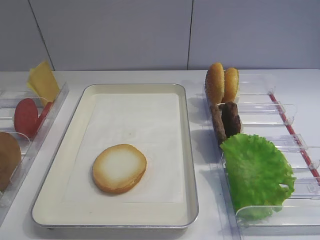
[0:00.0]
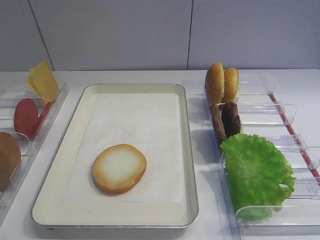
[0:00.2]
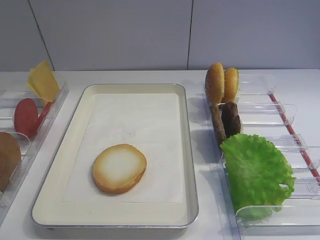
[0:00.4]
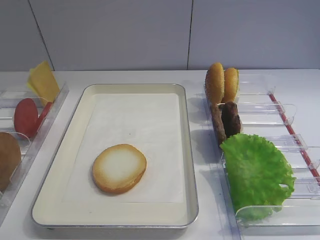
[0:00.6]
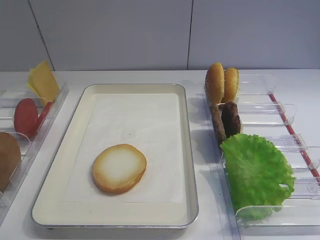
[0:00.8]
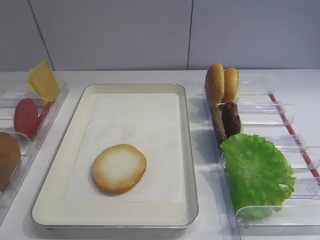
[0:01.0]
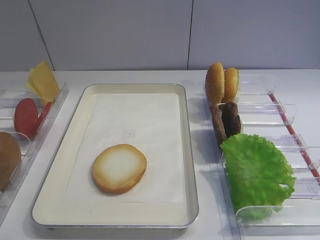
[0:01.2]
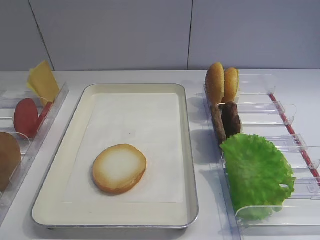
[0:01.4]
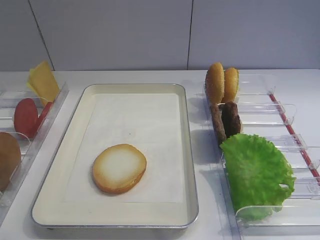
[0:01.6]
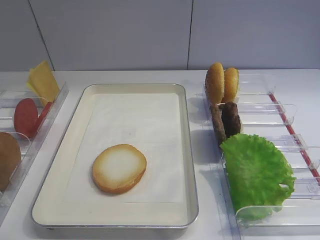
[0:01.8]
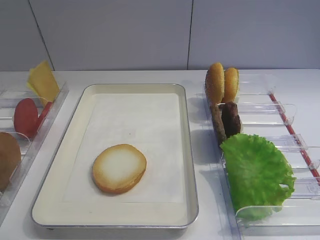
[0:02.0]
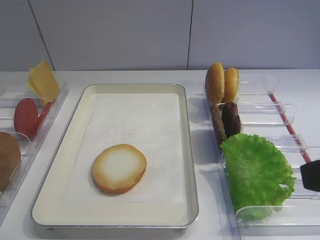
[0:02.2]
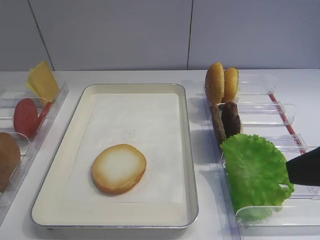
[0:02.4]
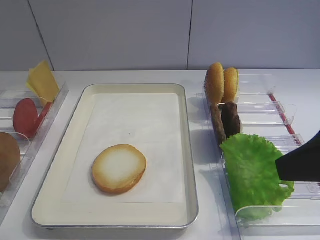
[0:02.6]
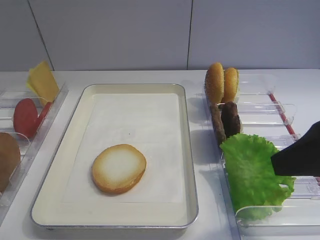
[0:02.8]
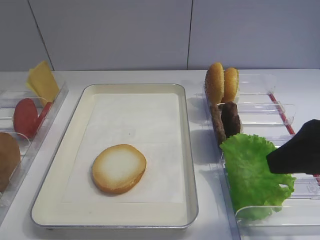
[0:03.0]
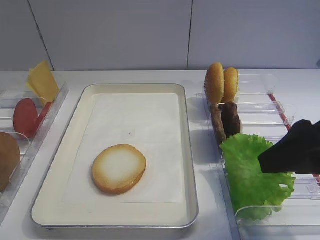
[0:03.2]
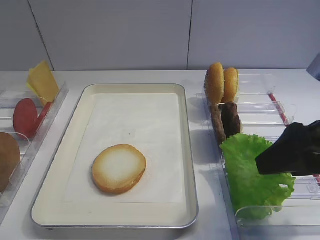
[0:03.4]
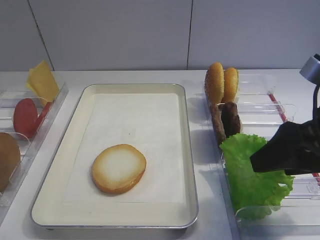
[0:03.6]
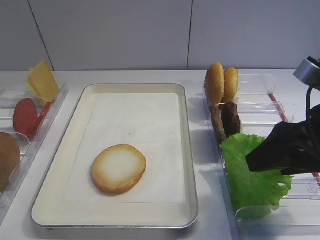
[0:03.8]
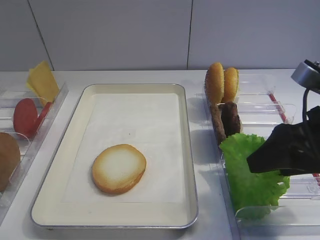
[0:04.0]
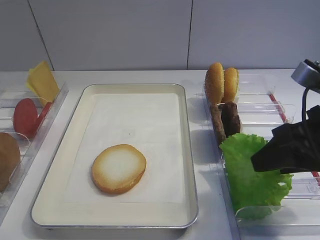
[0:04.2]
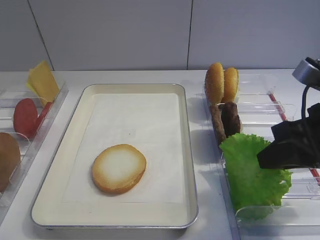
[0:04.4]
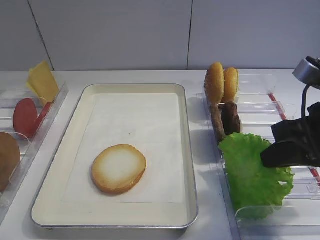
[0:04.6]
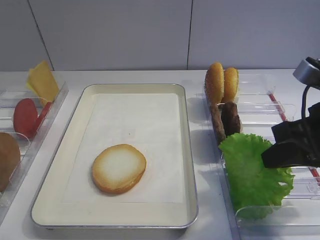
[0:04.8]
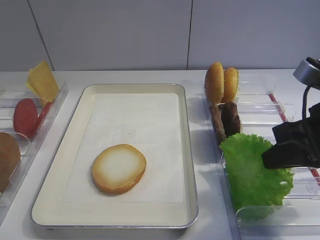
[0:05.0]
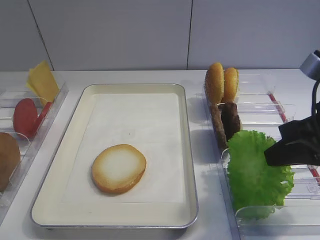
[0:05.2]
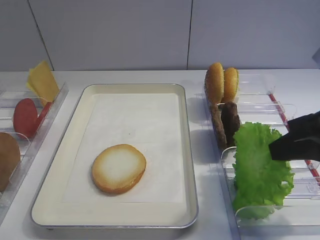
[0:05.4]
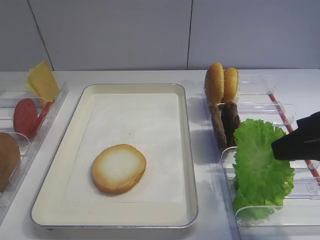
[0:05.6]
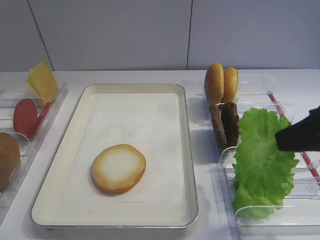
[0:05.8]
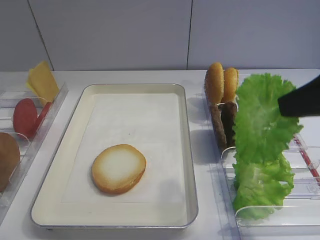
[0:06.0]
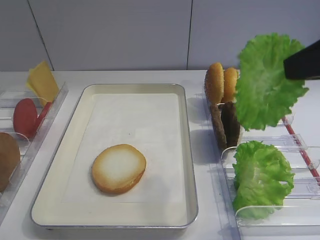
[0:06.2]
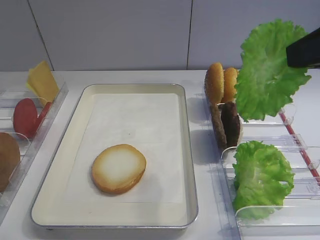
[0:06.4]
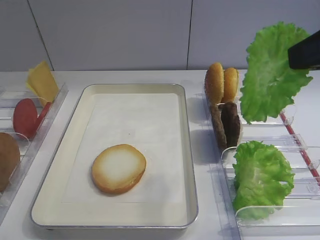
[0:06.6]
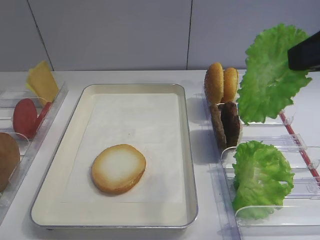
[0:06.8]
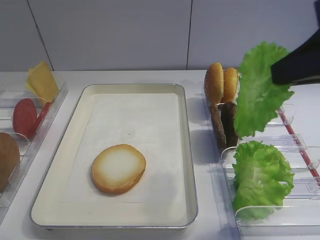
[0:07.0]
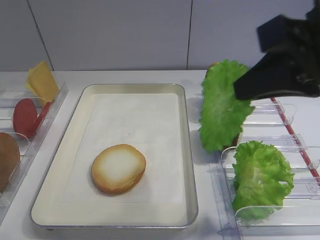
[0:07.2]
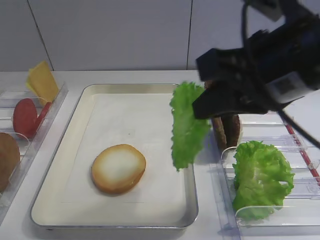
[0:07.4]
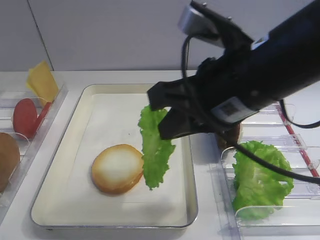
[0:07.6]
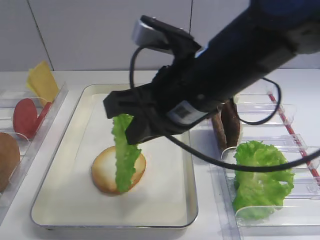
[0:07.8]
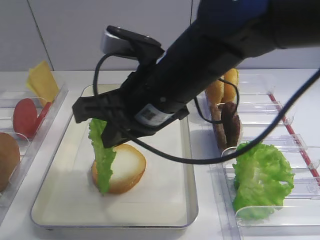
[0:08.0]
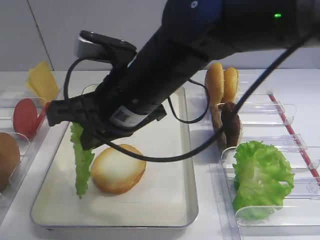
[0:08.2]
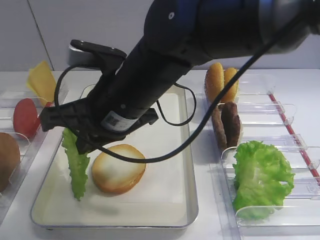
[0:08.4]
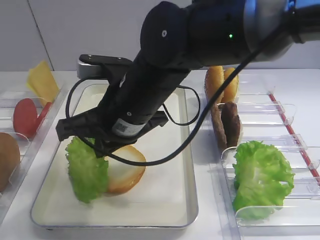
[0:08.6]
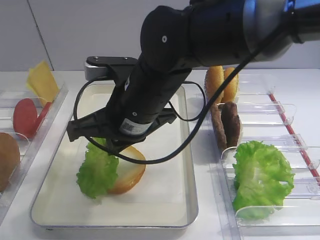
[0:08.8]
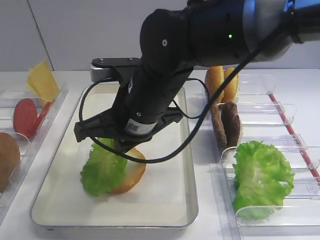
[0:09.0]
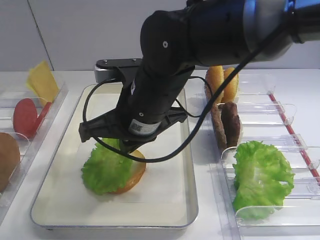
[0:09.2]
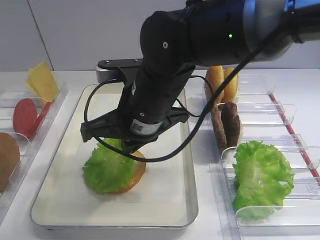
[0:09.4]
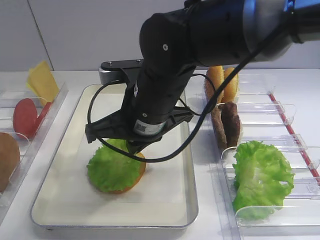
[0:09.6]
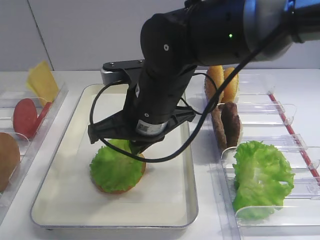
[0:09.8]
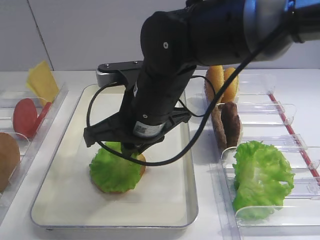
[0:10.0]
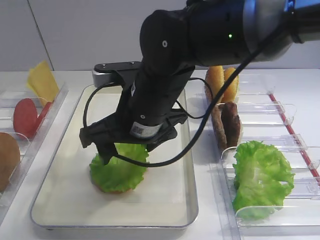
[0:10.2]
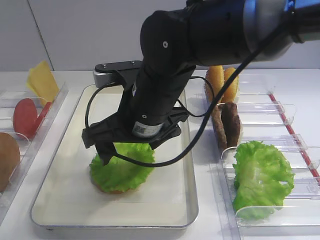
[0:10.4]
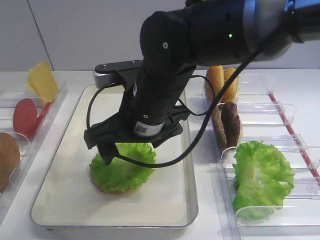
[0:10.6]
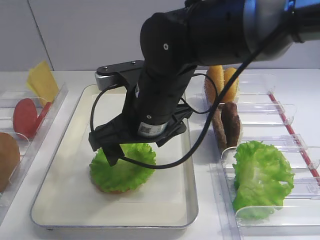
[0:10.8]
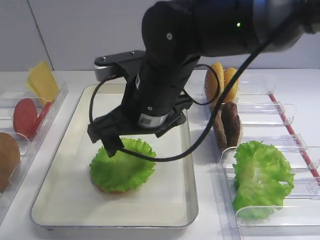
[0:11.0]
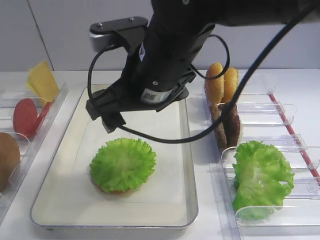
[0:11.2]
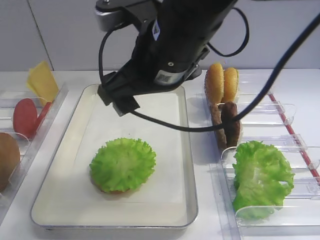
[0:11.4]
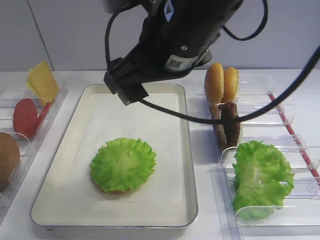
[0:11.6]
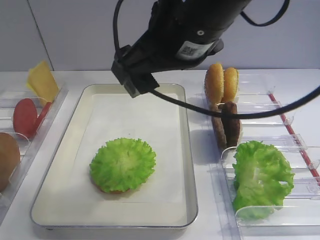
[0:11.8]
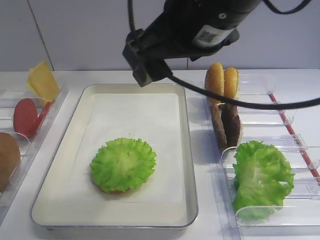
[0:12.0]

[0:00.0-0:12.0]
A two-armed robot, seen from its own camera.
Step, 0:00.0 to 0:05.8: Pick up the lettuce leaf with the right gripper.
Step, 0:06.0 to 0:11.0: Place the lettuce leaf on the bread slice with the right gripper.
0:01.6 to 0:03.0: The right gripper moves forward, about 15 cm.
0:03.0 to 0:04.4: The right gripper changes place by about 5 cm, and closes up.
0:04.4 to 0:06.0: The right gripper is displaced upward by some 10 cm.
0:06.0 to 0:07.6: The right gripper travels to the left by some 15 cm.
0:07.6 to 0:09.0: The right gripper travels to the left, downward and forward by about 15 cm.
0:09.0 to 0:10.4: The right gripper opens its fingers.
0:10.4 to 0:12.0: The right gripper goes about 15 cm upward and to the right.

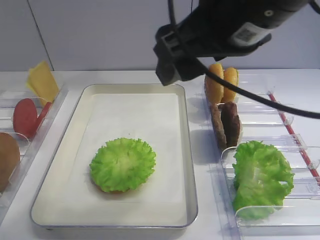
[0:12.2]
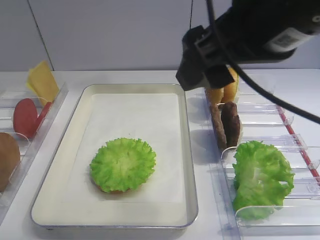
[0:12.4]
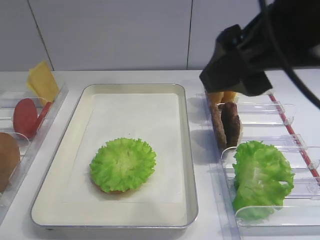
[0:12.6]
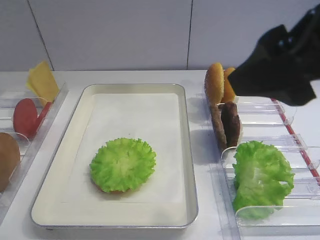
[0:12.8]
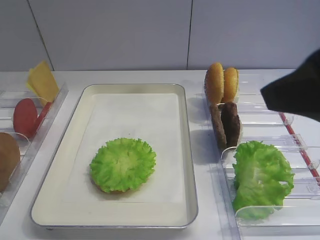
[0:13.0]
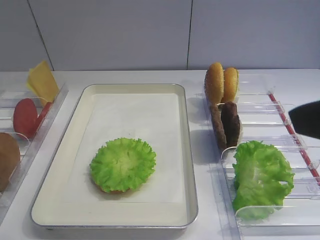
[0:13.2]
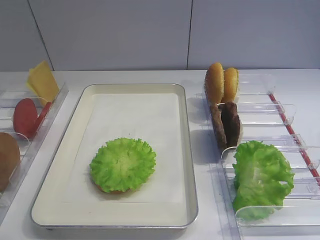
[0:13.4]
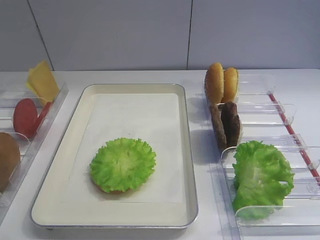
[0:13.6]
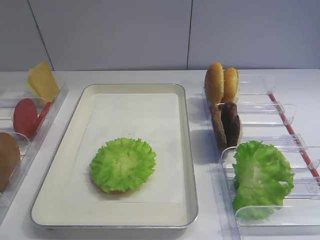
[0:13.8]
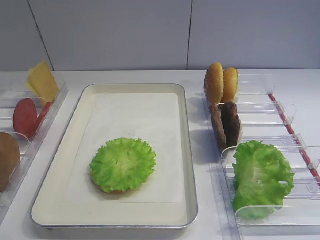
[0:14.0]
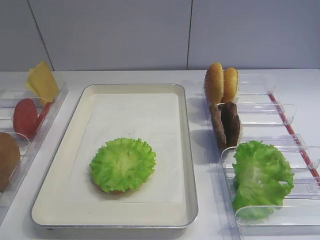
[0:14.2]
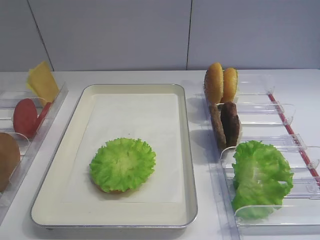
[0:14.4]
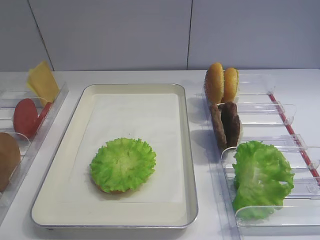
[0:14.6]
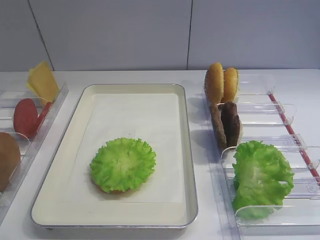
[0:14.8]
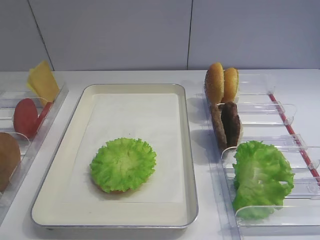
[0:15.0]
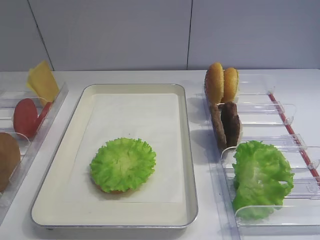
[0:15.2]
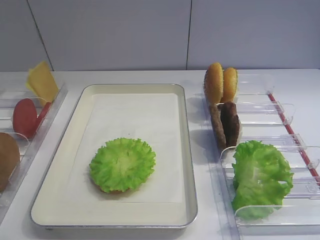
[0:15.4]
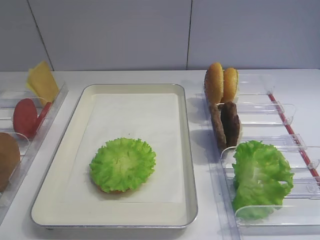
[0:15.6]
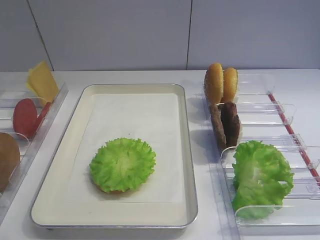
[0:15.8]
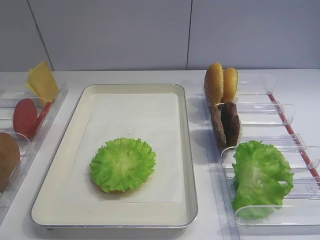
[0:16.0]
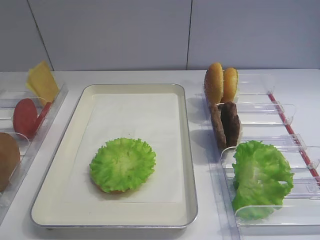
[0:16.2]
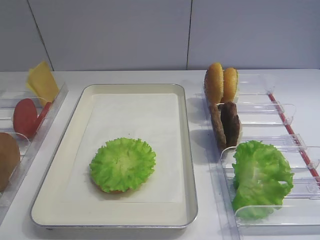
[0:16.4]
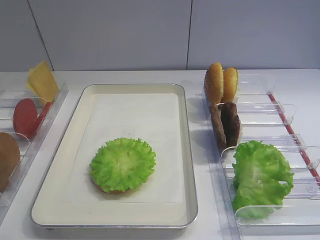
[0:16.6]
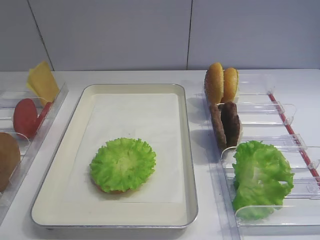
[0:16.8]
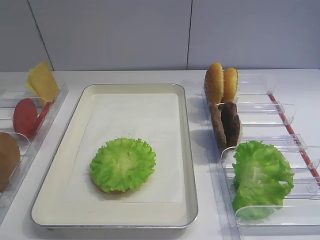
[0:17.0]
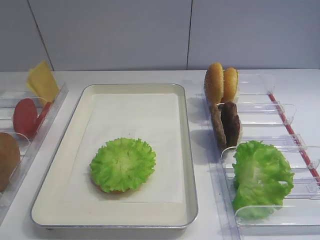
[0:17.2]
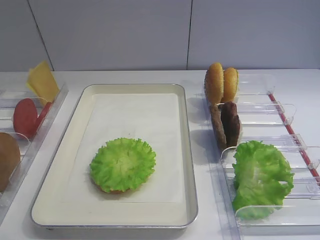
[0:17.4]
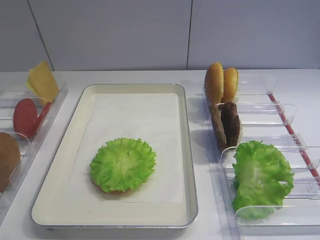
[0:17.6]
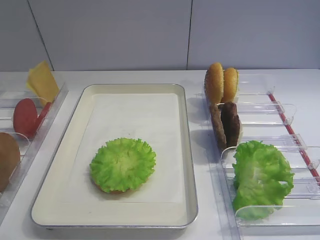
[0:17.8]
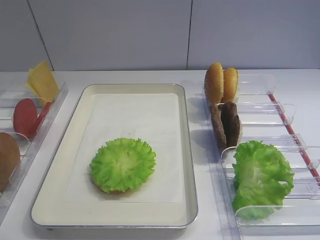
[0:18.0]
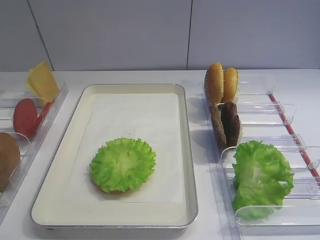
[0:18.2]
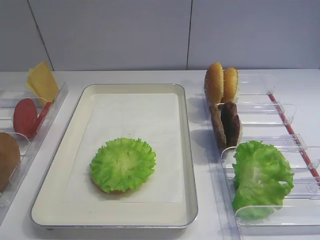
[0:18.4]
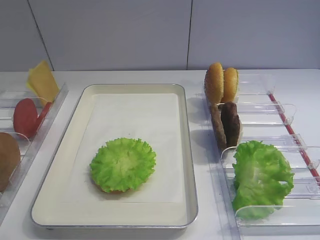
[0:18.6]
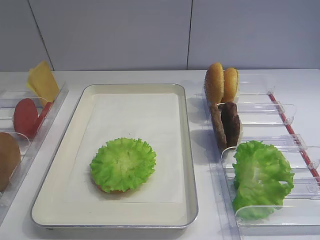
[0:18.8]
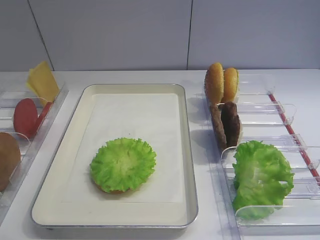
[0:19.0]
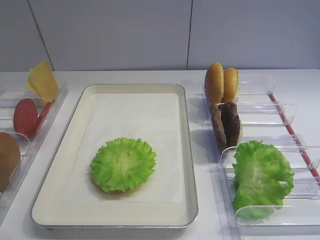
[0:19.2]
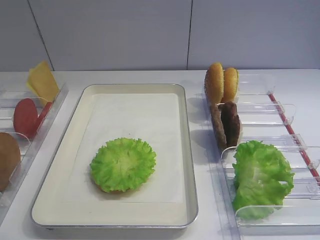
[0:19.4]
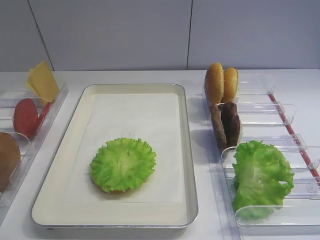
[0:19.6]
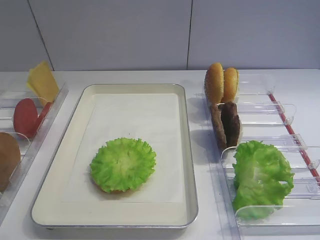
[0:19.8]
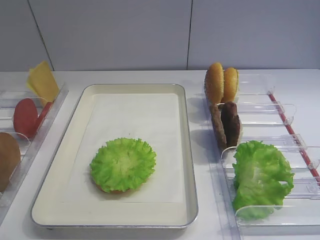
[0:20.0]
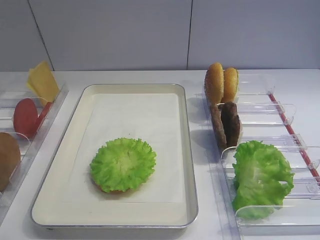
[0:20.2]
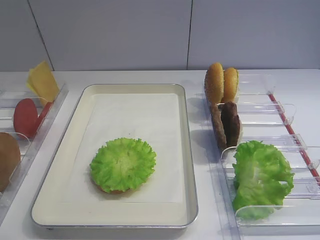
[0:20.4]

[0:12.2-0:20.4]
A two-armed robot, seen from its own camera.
0:12.2 to 0:13.8: The right gripper goes roughly 25 cm to the right and backward.
0:17.2 to 0:20.4: Both grippers stay put.

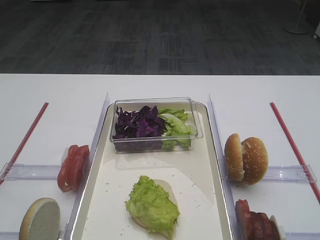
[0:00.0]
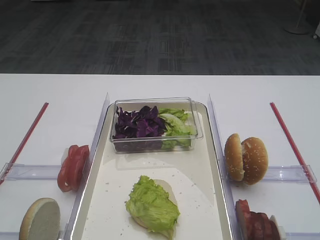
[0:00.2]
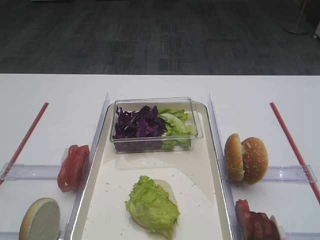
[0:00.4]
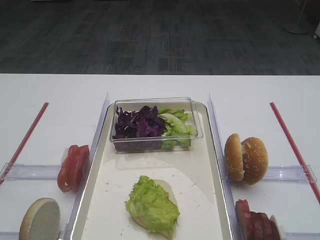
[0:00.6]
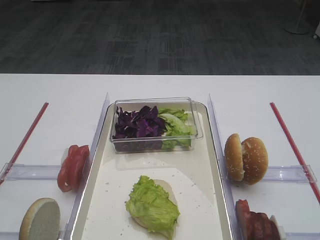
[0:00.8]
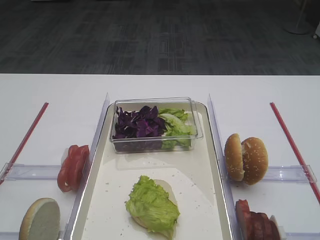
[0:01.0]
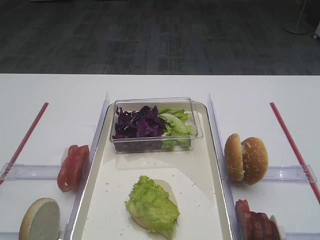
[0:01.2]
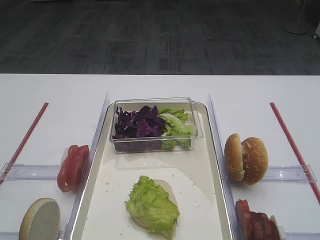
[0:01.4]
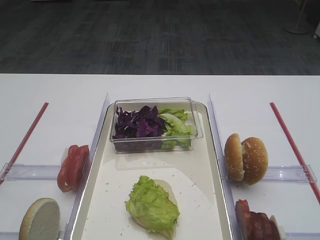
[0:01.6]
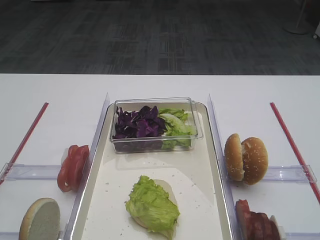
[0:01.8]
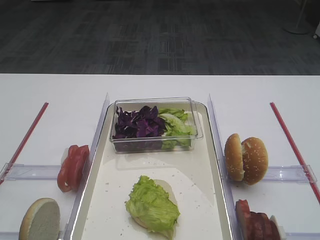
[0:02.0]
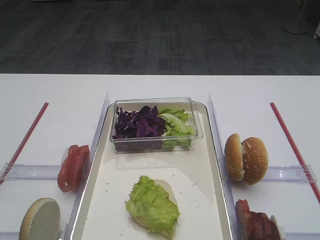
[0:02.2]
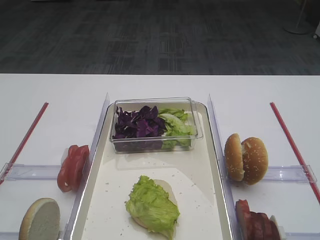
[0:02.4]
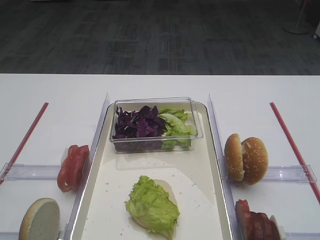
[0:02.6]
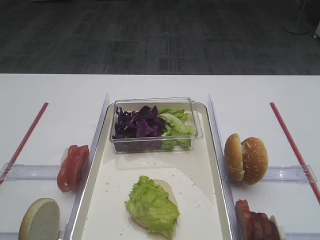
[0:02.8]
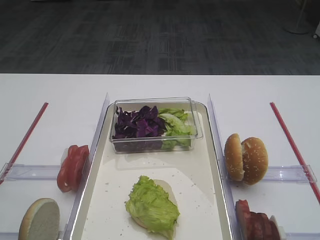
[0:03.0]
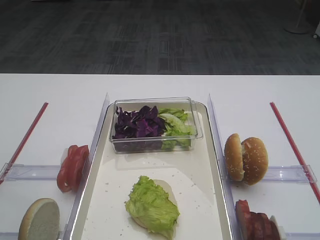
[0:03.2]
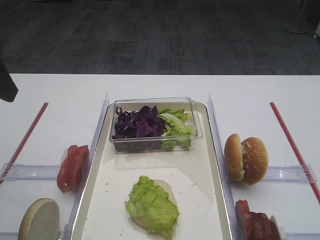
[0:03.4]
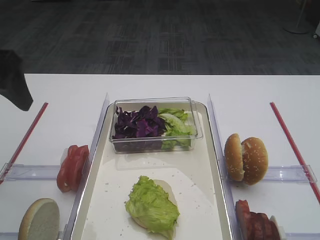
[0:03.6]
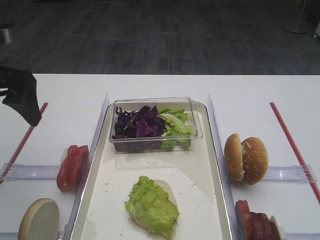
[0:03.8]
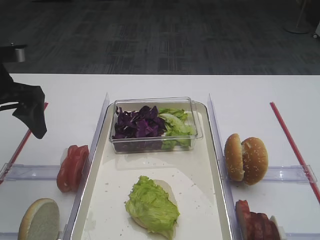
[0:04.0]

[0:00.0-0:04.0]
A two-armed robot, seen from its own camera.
0:02.6 to 0:04.0: The left gripper is displaced forward by some 25 cm.
